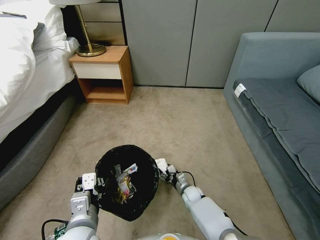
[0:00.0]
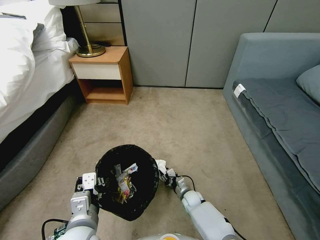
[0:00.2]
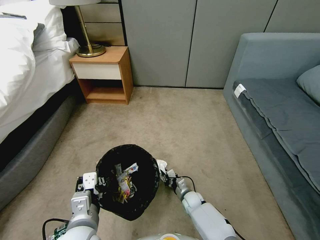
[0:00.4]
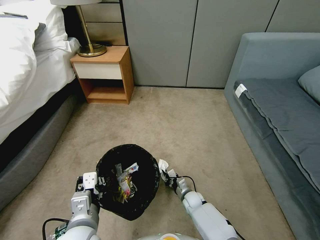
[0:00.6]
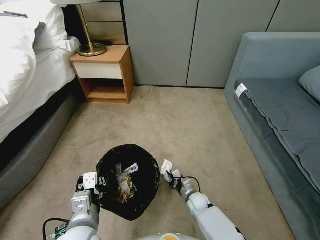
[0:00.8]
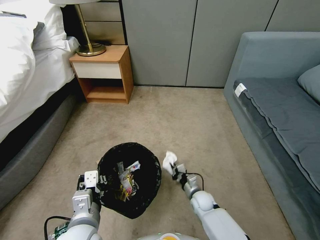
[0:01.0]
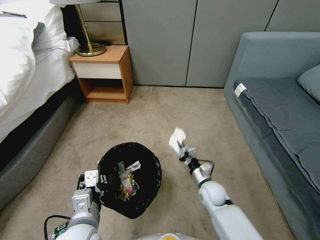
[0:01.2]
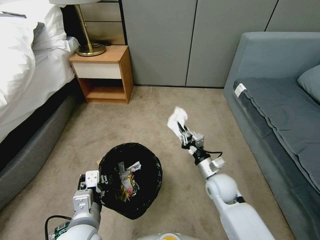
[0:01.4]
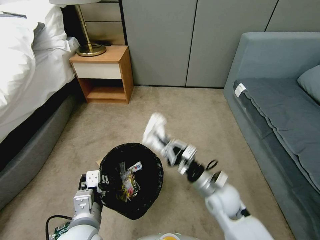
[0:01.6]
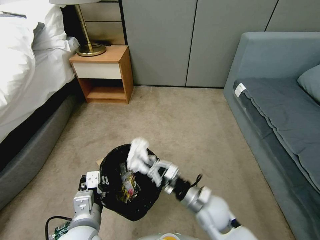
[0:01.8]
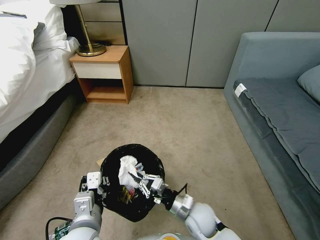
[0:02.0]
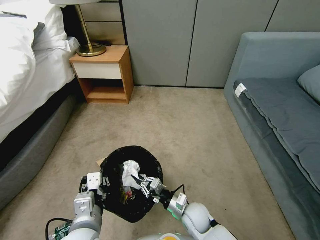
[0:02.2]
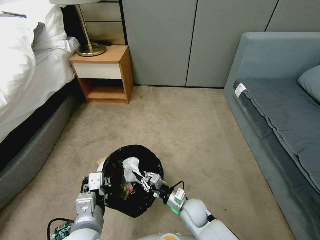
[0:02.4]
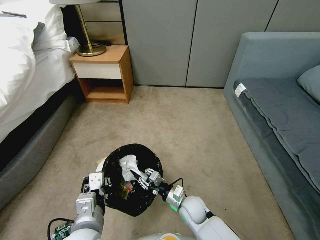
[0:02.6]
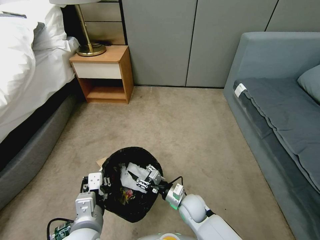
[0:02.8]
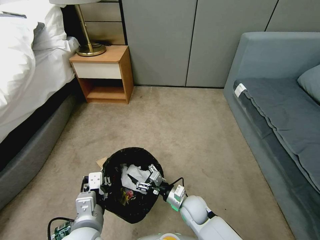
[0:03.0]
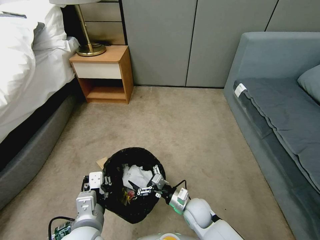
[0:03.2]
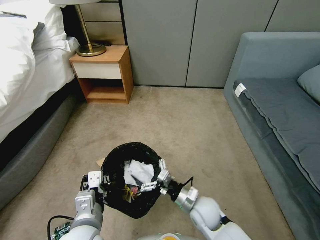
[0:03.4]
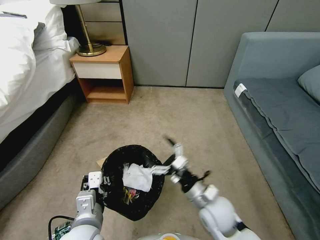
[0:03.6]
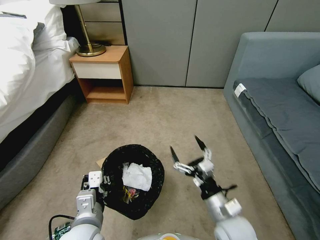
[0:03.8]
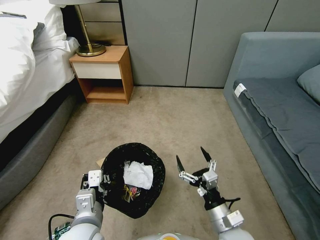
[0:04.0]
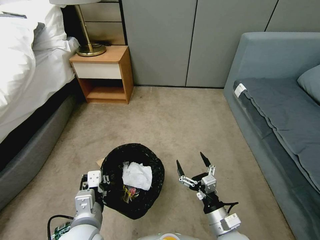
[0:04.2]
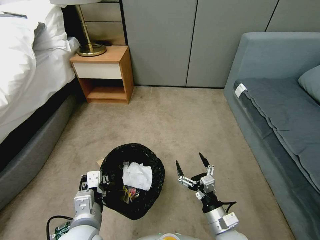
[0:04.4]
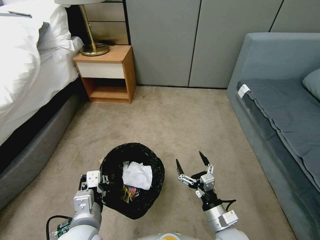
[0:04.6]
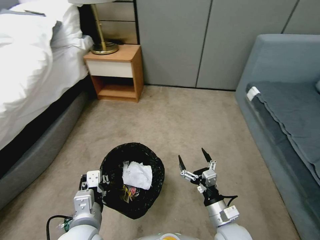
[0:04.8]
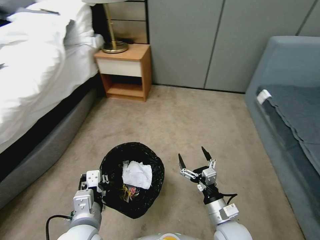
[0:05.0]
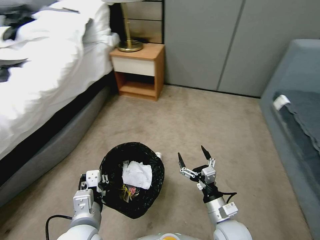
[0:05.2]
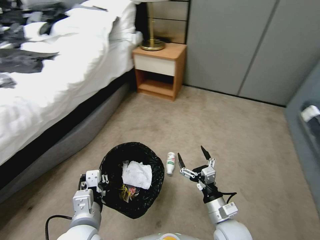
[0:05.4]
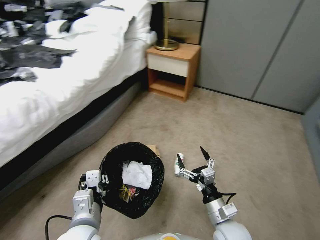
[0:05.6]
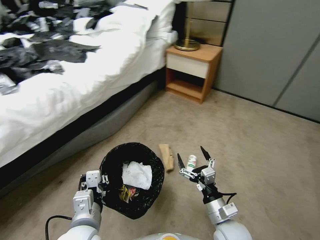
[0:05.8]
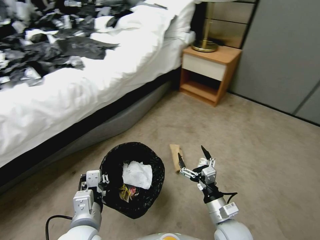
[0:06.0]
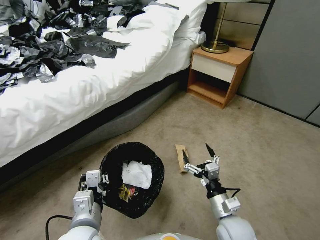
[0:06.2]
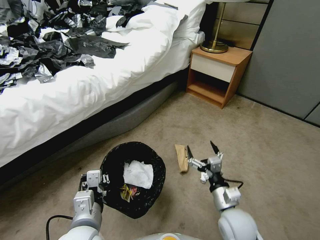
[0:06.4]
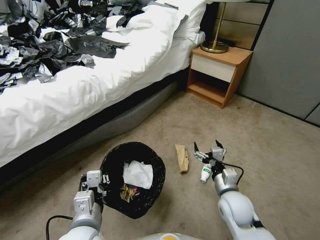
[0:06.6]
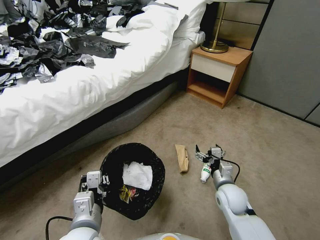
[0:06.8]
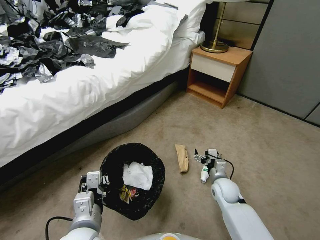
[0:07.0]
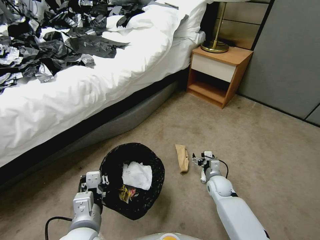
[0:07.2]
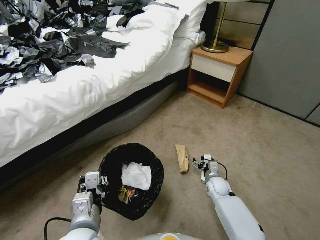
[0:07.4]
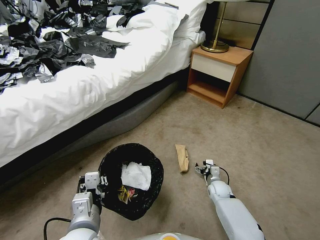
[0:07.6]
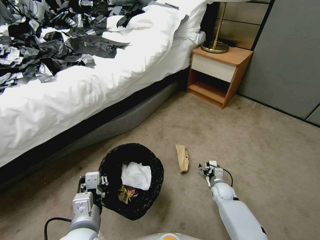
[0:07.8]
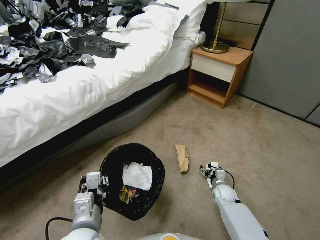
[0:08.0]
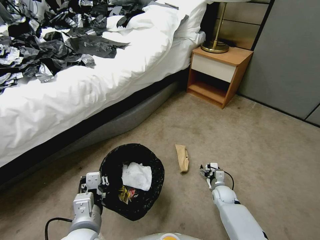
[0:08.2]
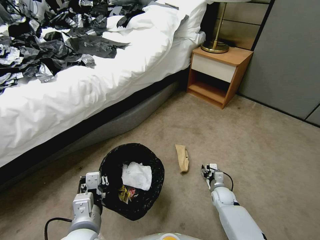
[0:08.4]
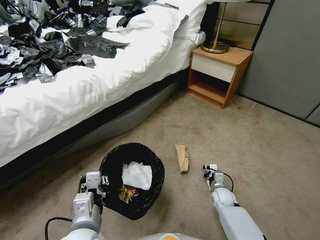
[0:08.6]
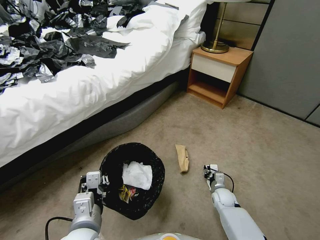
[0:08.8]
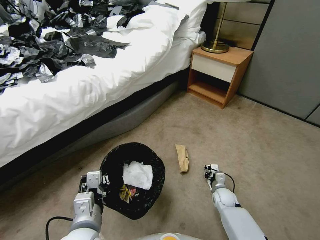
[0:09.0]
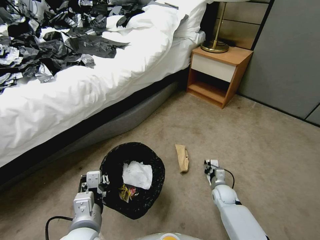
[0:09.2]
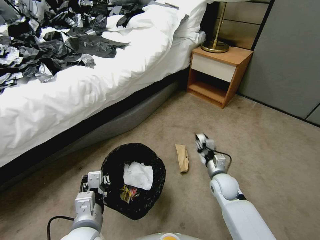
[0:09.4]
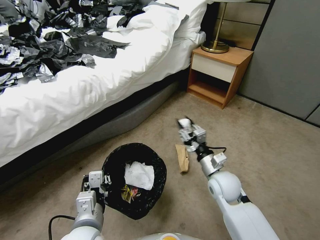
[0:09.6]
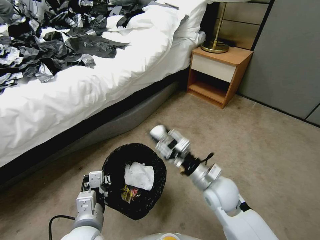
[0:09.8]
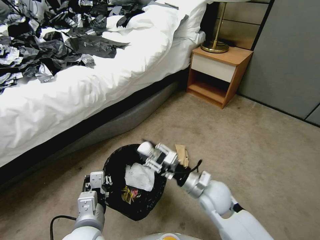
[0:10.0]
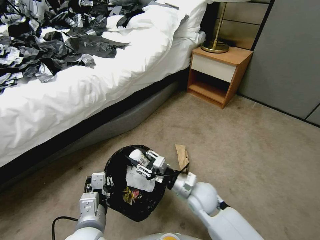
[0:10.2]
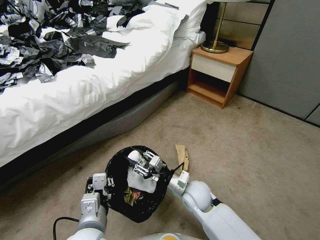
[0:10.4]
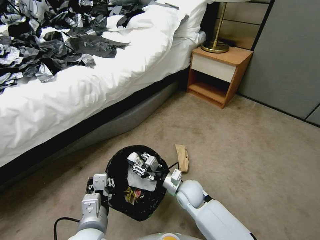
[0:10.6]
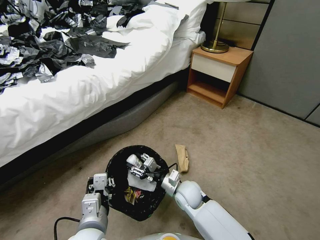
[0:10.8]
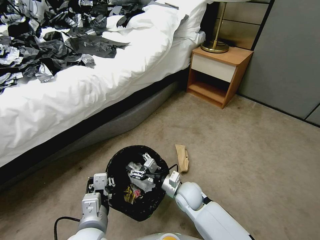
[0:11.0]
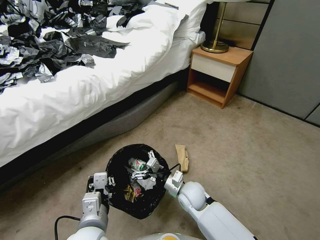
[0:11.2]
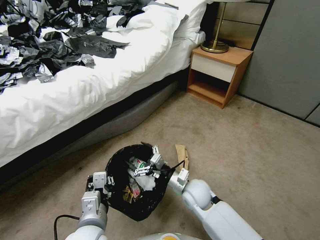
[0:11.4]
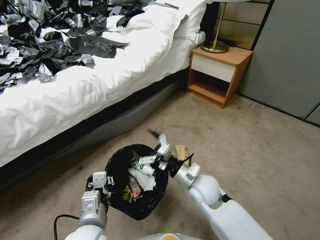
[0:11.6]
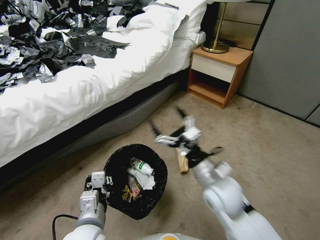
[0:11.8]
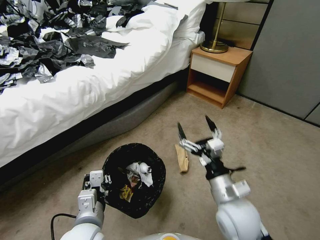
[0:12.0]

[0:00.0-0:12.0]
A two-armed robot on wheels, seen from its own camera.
Task of the whole recording: Pick up the trash bin, then pick up the garbage from the floor and place it into the trash bin.
0:00.0 to 0:01.6: The right gripper goes roughly 30 cm upward, and closes its fingers.
0:01.6 to 0:03.0: The right gripper shifts about 15 cm downward and to the left, and opens.
0:03.0 to 0:04.4: The right gripper moves backward, to the right and upward, some 15 cm.
0:06.0 to 0:07.6: The right gripper heads forward and downward, covering approximately 25 cm.
0:07.6 to 0:09.0: The right gripper closes up.
0:09.0 to 0:10.4: The right gripper shifts about 25 cm to the left and upward.
0:10.4 to 0:12.0: The right gripper heads upward, backward and to the right, covering about 15 cm, and opens.

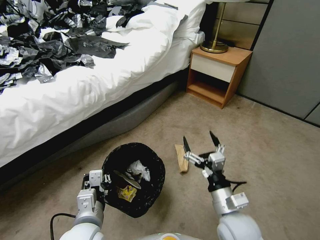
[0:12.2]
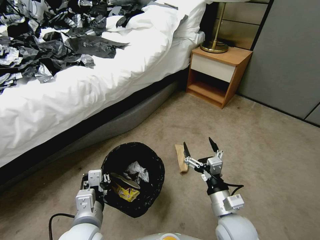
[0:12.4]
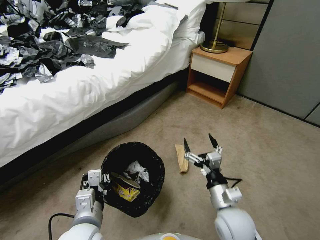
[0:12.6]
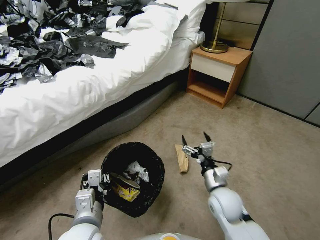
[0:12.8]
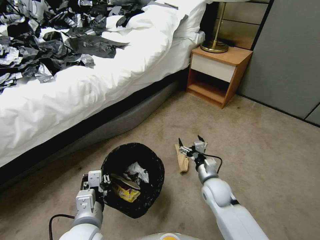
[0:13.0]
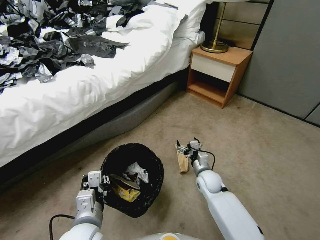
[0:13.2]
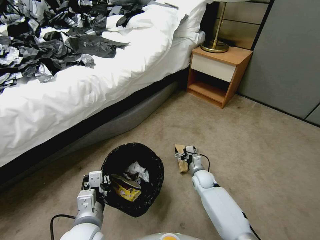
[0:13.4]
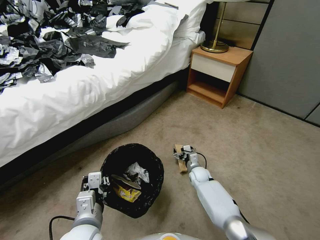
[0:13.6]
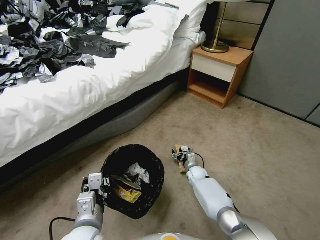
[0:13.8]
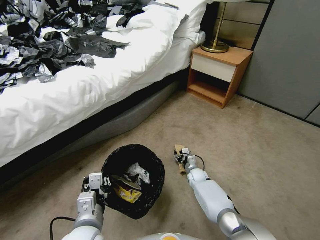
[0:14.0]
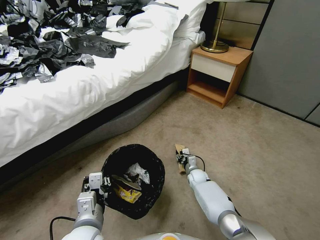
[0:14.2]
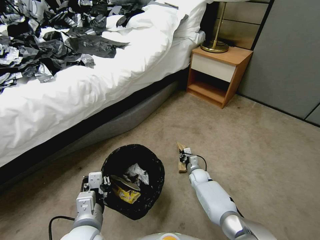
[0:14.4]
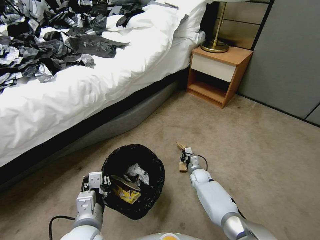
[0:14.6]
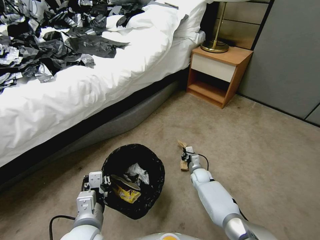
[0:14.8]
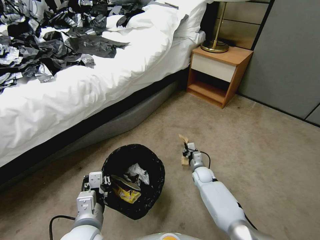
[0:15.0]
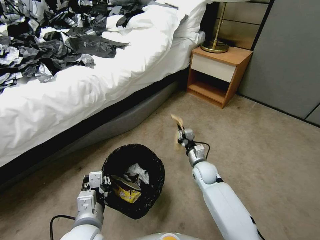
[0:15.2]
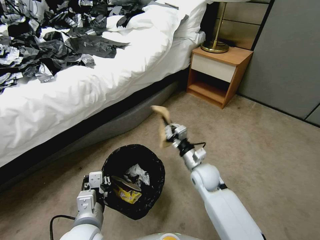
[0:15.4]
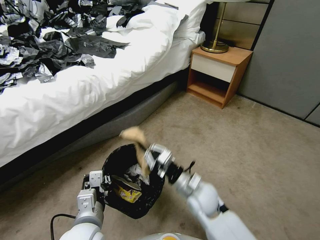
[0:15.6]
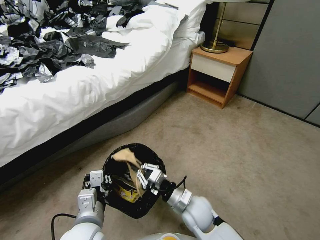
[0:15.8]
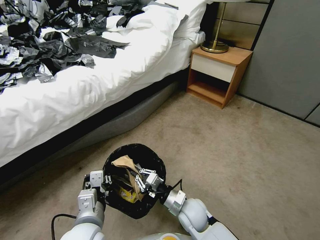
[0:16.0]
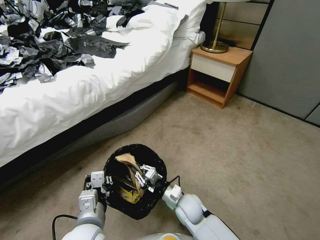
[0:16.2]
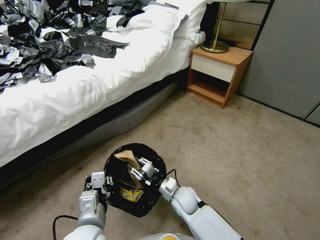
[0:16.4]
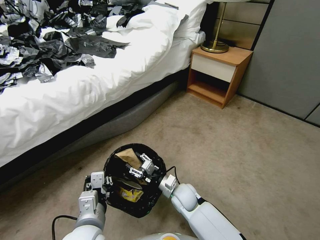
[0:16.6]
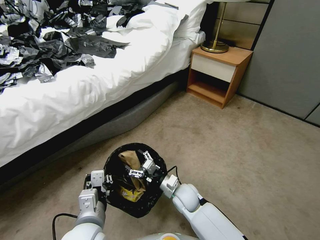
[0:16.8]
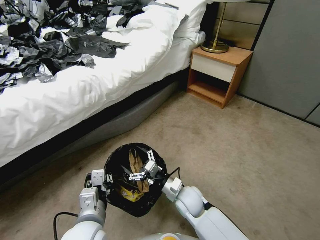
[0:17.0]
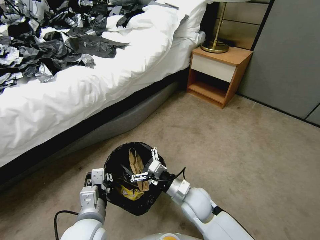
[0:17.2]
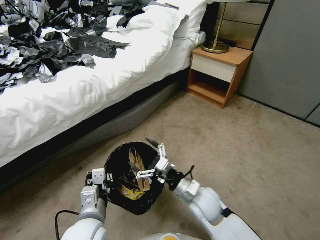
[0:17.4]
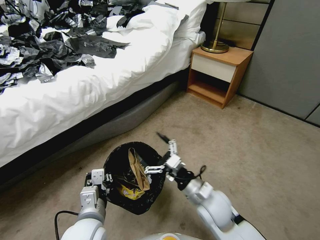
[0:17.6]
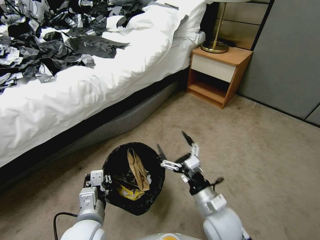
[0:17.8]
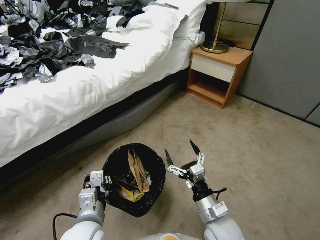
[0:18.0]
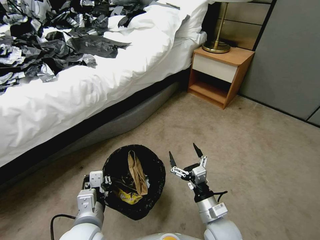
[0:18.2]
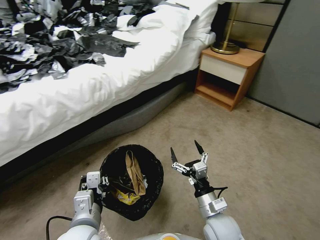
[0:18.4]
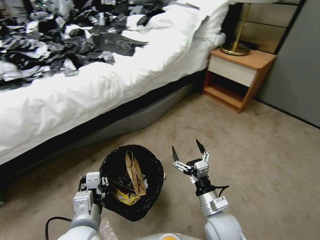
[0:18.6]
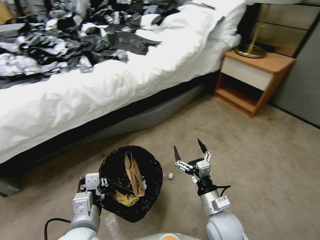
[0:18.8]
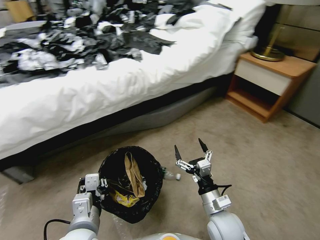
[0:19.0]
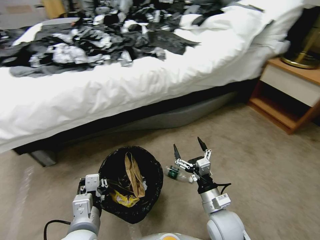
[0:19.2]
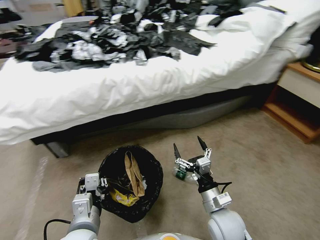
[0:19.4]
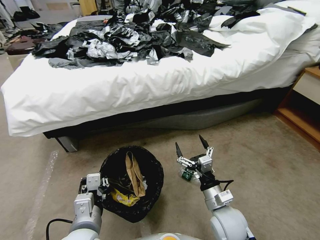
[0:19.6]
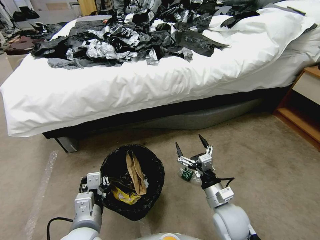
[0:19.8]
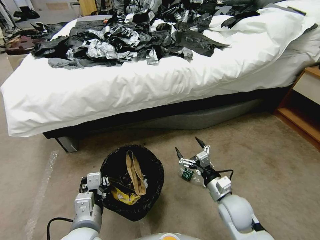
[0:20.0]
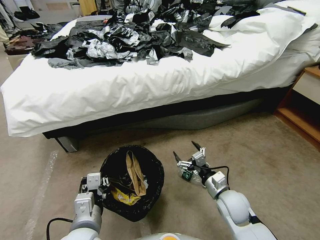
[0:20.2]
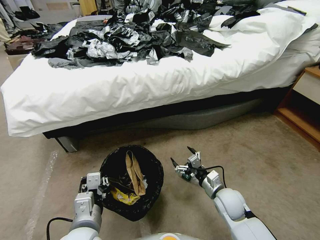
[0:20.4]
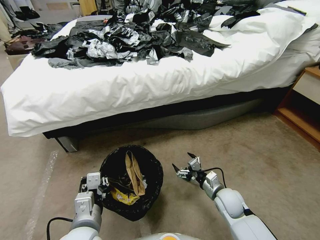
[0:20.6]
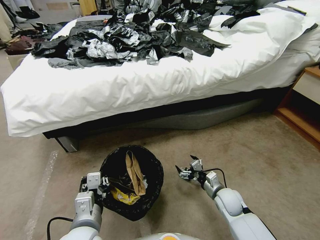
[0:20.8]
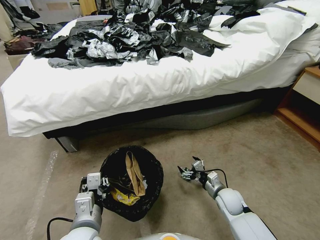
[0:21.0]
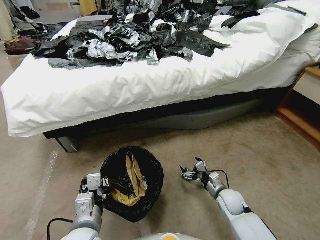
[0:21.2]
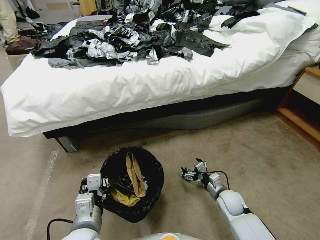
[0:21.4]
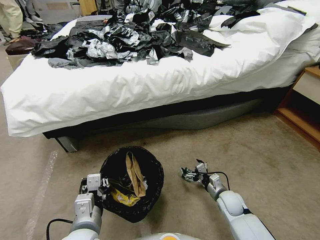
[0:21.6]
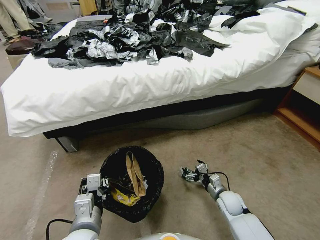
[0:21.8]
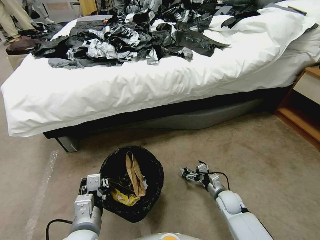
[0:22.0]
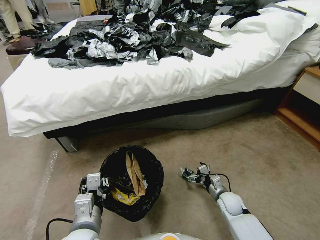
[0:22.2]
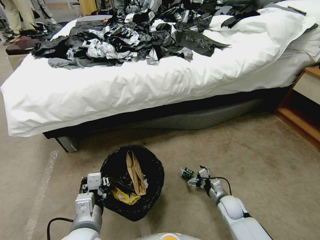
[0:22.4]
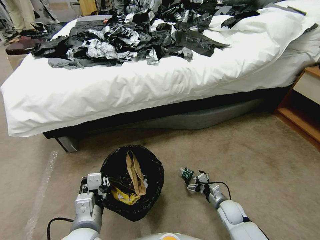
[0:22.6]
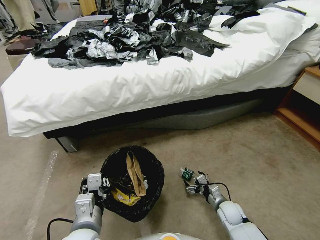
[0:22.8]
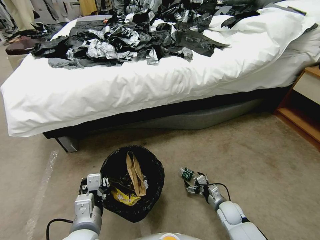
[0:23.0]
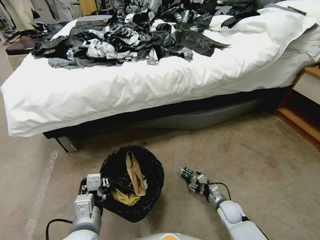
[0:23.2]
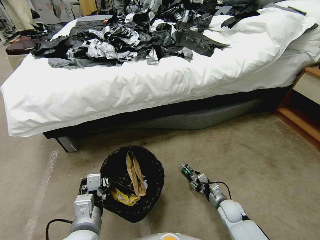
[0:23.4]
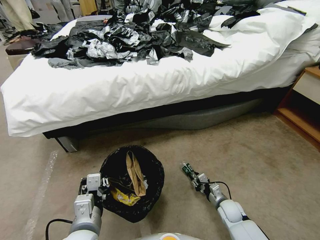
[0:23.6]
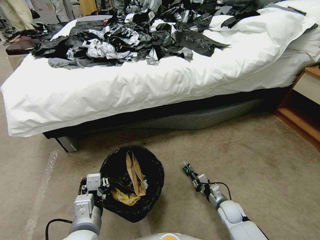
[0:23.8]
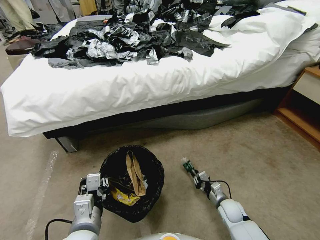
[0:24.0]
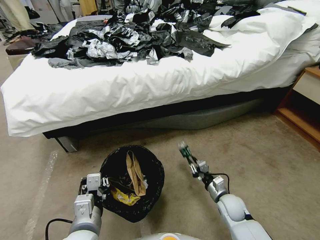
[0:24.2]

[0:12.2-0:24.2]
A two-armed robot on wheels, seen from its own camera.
Task of the whole recording: Pick up the trash bin, then pick up the garbage from the floor and place it into the trash bin.
0:12.2 to 0:13.8: The right gripper shifts about 35 cm forward and downward.
0:13.8 to 0:15.2: The right gripper is displaced upward by some 10 cm, and closes.
0:15.2 to 0:16.6: The right gripper travels to the left and backward by some 15 cm, and opens up.
0:16.6 to 0:18.2: The right gripper shifts about 15 cm backward, to the right and upward, and opens.
0:18.2 to 0:19.8: The right gripper moves roughly 5 cm.
0:19.8 to 0:21.2: The right gripper heads downward, forward and to the right, covering some 15 cm.
0:21.2 to 0:22.6: The right gripper travels downward by about 5 cm.
0:22.6 to 0:24.2: The right gripper closes up.
